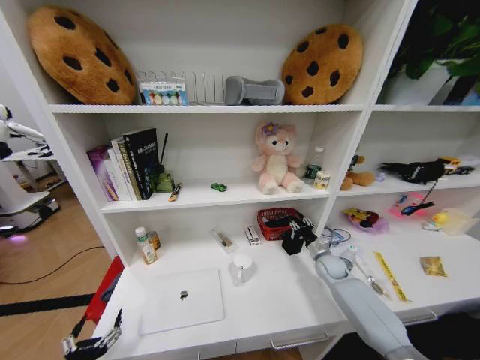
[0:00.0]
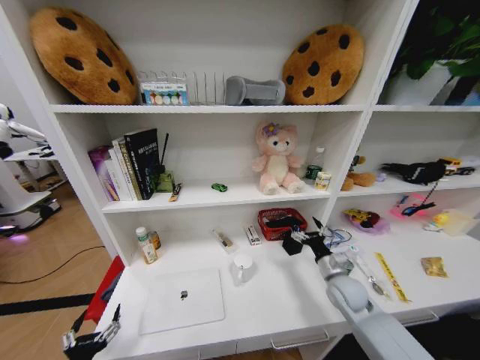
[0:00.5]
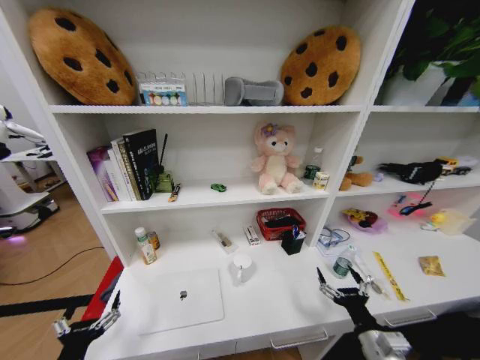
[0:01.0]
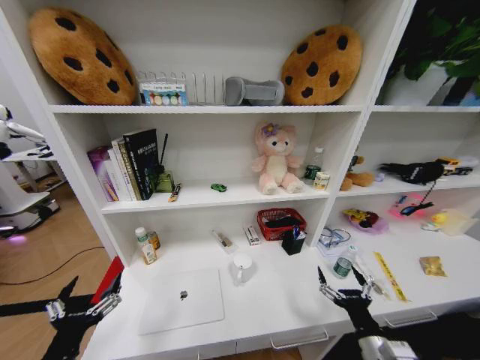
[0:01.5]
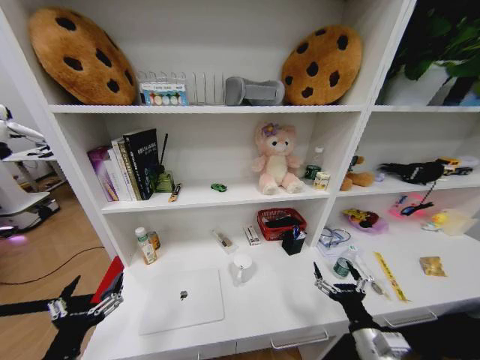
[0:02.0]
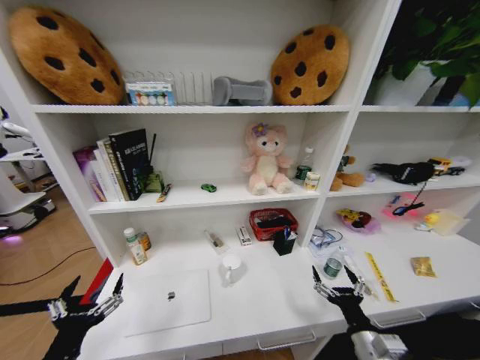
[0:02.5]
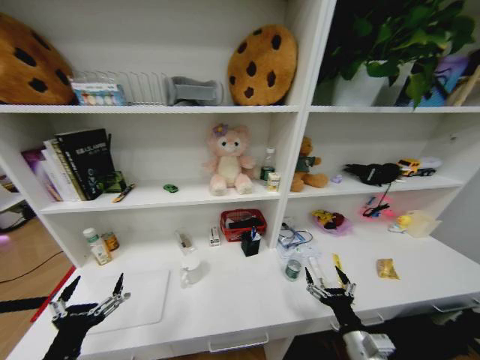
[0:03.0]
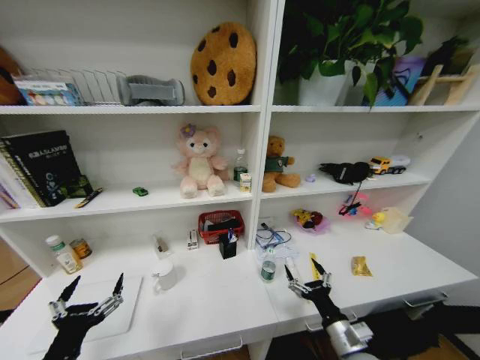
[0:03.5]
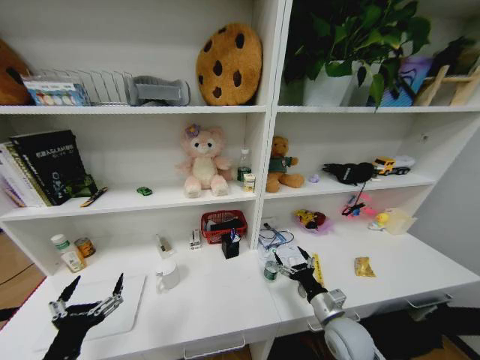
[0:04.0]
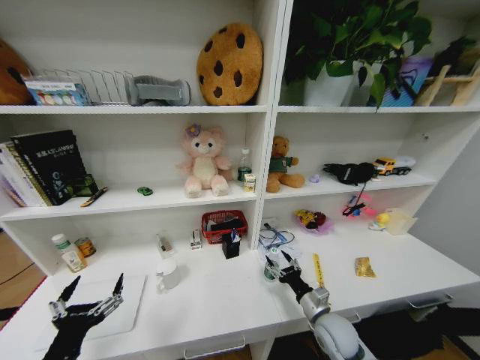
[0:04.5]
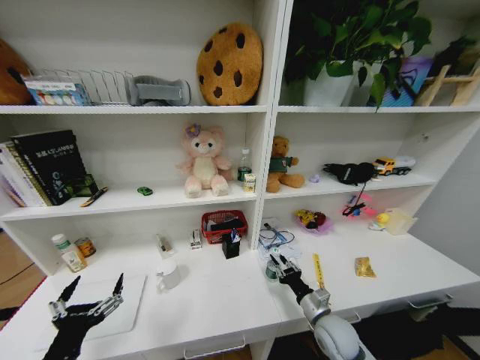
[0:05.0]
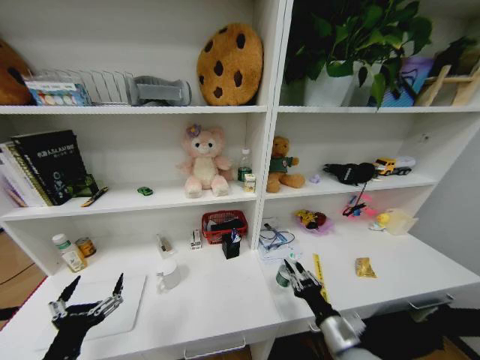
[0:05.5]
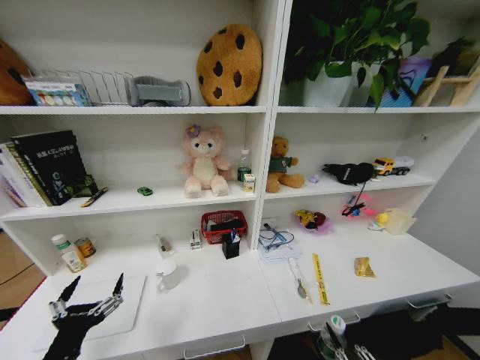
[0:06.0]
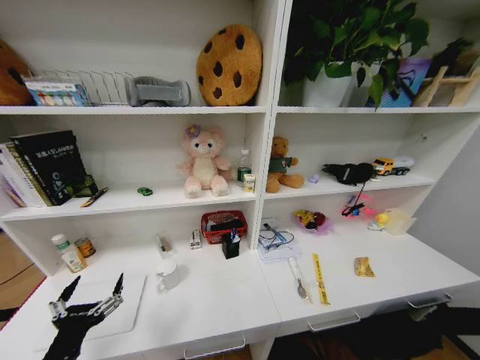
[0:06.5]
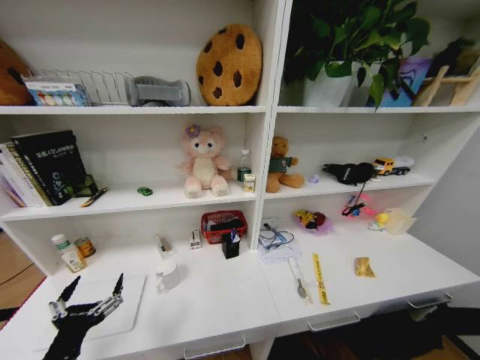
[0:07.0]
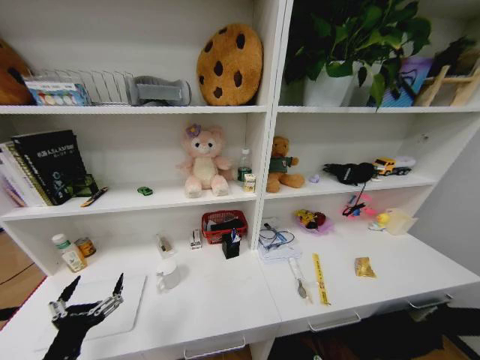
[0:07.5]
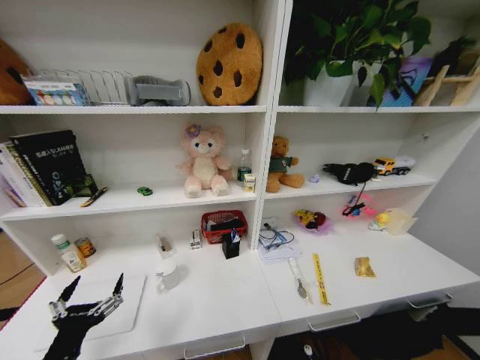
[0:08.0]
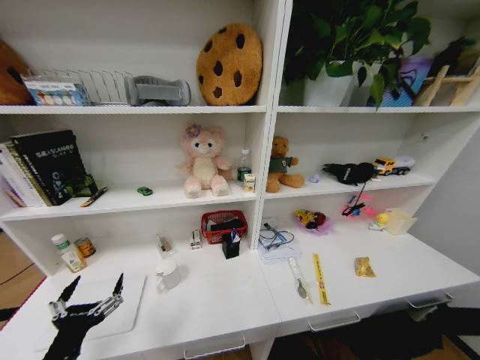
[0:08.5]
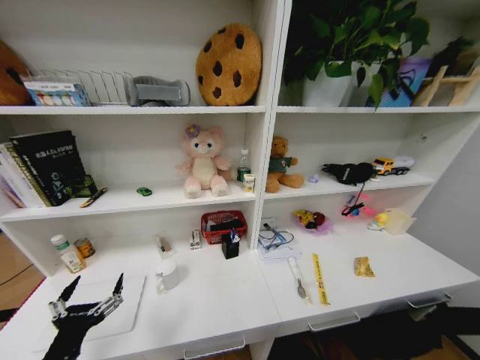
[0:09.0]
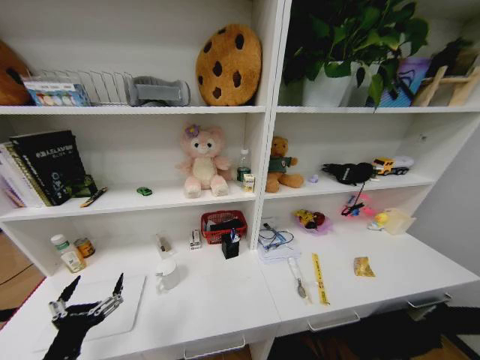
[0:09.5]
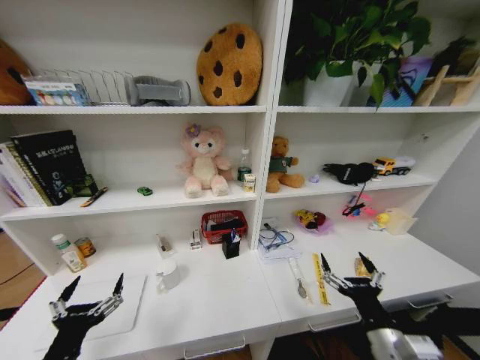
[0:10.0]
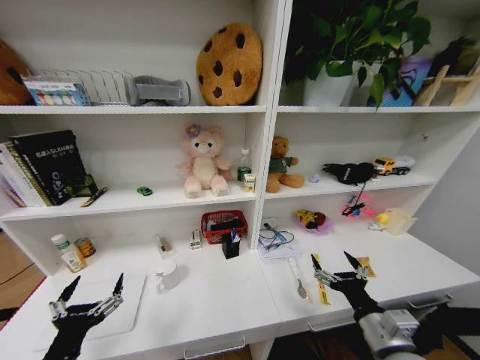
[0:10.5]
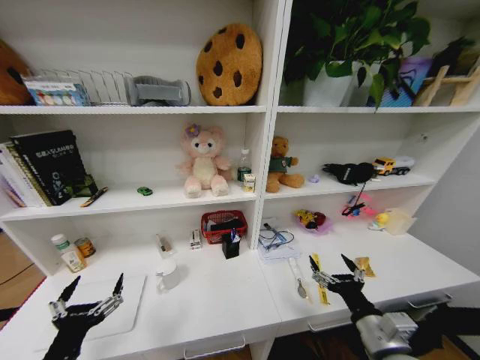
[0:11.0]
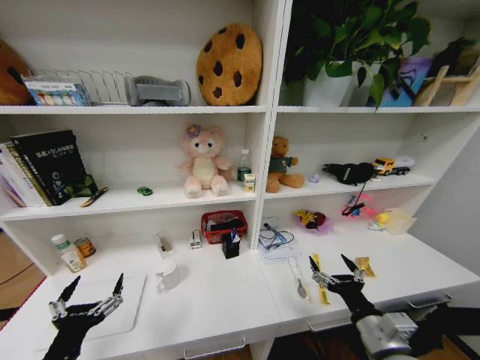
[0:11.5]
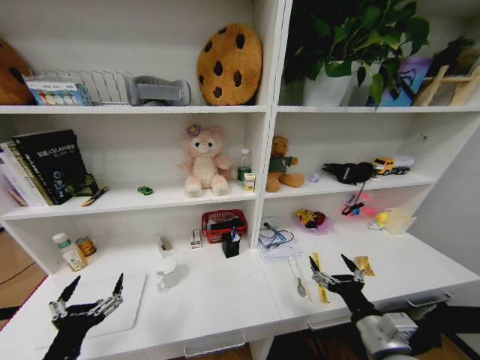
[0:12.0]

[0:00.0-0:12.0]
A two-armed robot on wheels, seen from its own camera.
Task of the whole recording: Organize the objects on the table.
0:00.0 to 0:02.0: The left gripper heads upward, covering some 10 cm; the right gripper moves backward, some 30 cm, and opens up.
0:02.0 to 0:04.0: The right gripper is displaced forward by approximately 10 cm.
0:04.0 to 0:06.0: The right gripper shifts some 25 cm backward, and closes up.
0:06.0 to 0:08.0: The right gripper moves downward, roughly 35 cm.
0:08.0 to 0:10.0: The right gripper goes roughly 40 cm upward, and opens.
0:10.0 to 0:12.0: There are only small adjustments of the grippers.

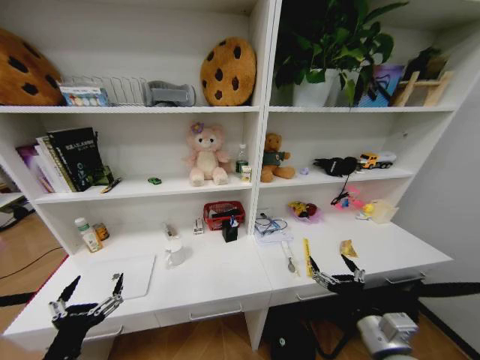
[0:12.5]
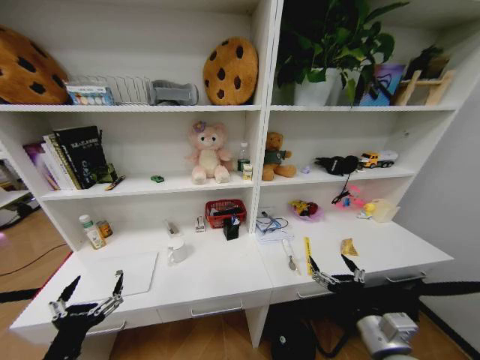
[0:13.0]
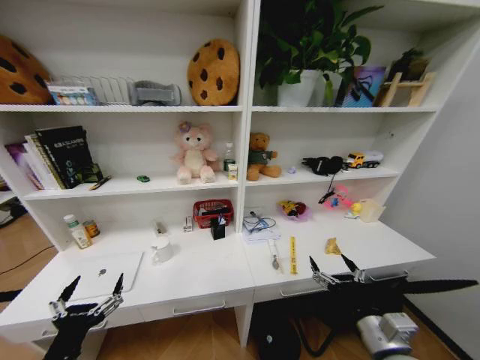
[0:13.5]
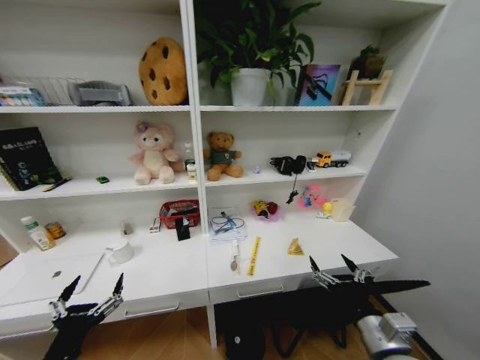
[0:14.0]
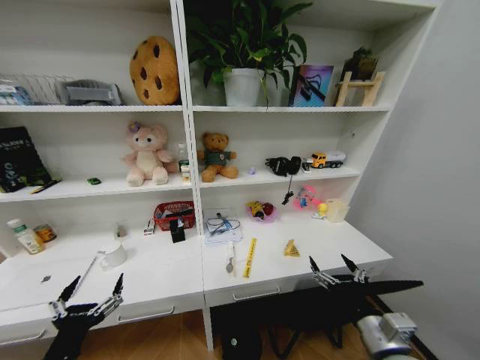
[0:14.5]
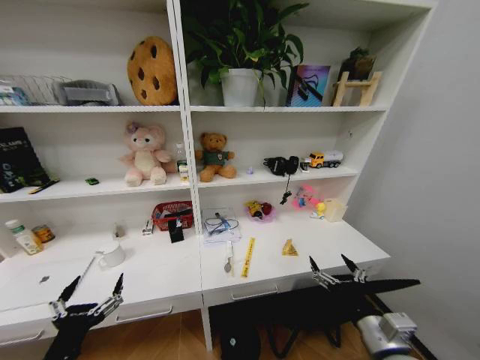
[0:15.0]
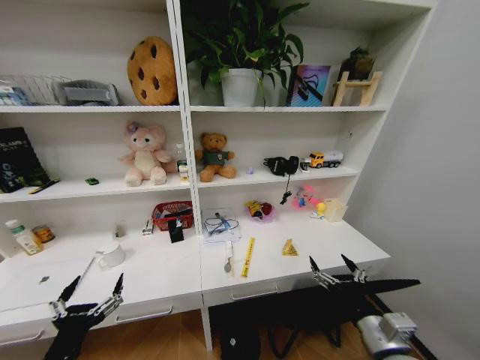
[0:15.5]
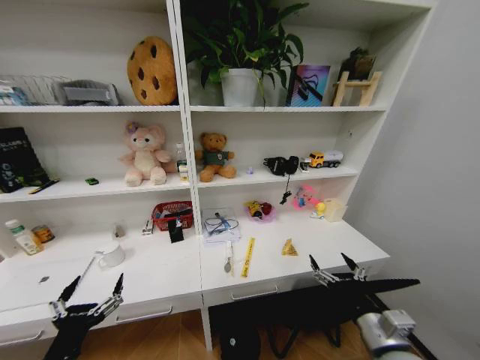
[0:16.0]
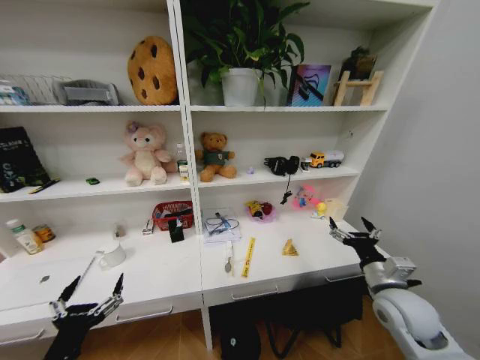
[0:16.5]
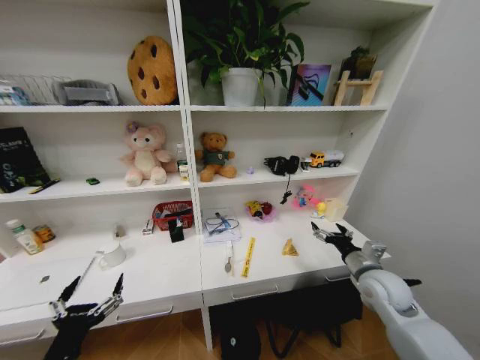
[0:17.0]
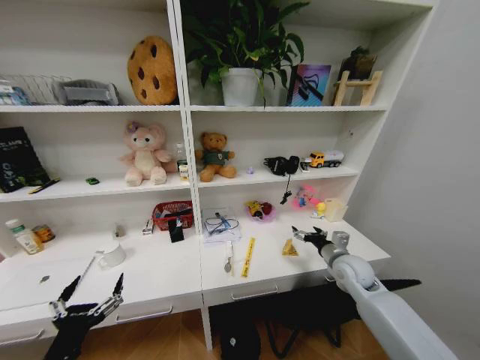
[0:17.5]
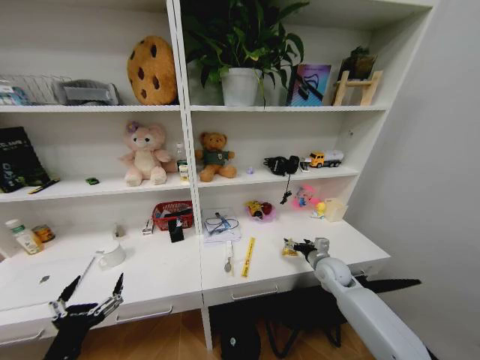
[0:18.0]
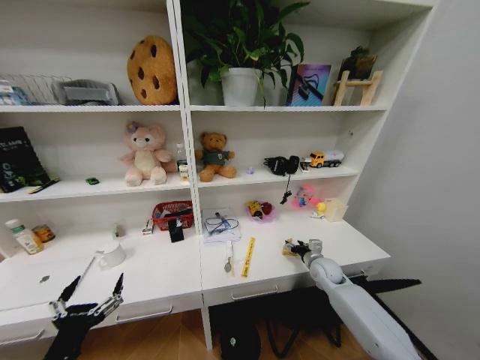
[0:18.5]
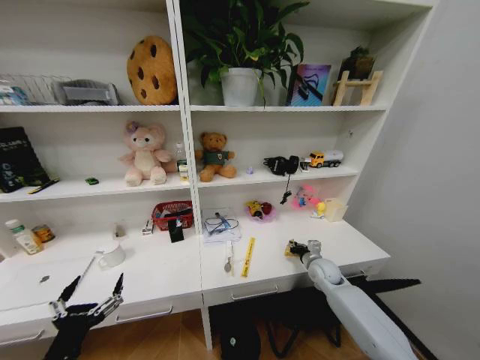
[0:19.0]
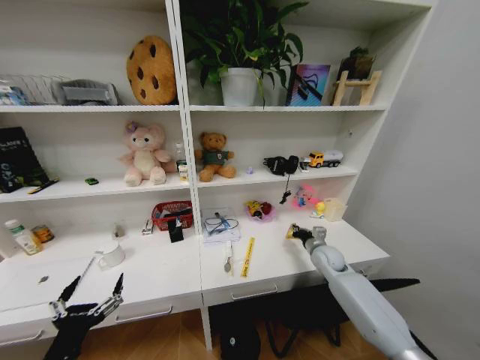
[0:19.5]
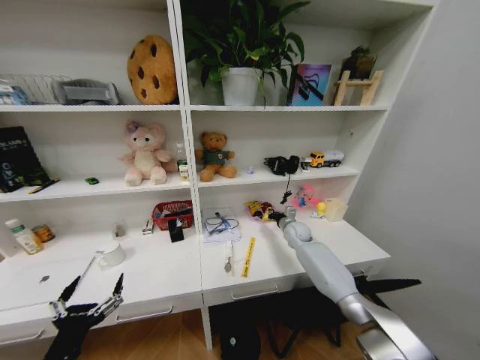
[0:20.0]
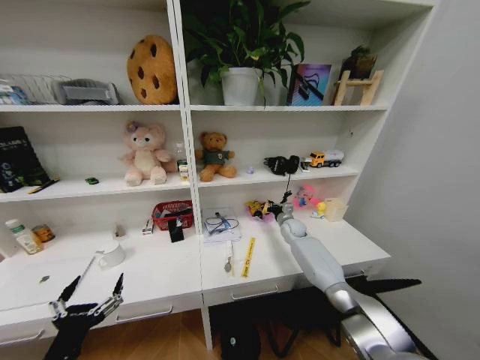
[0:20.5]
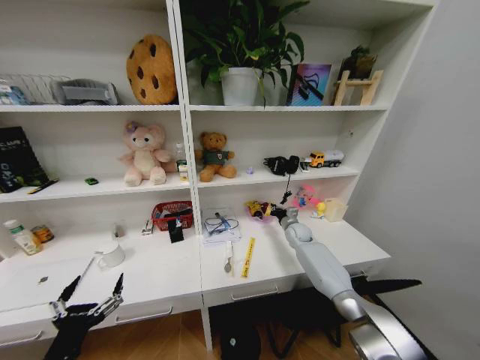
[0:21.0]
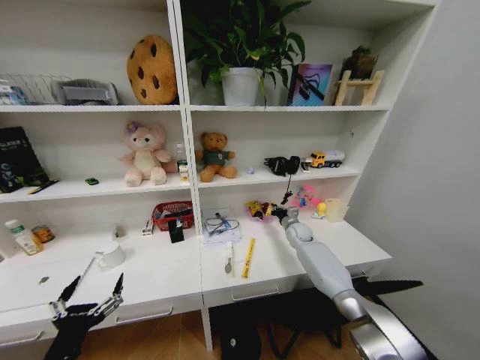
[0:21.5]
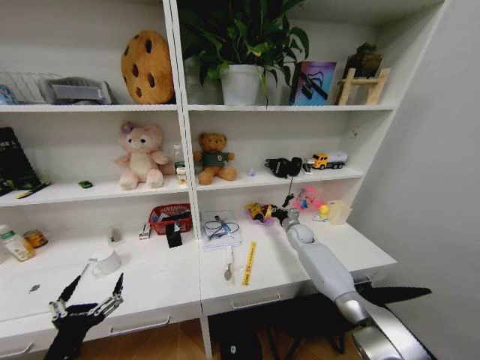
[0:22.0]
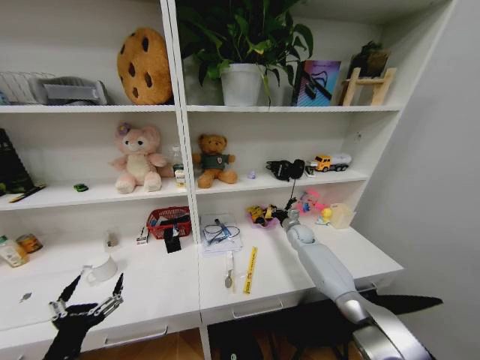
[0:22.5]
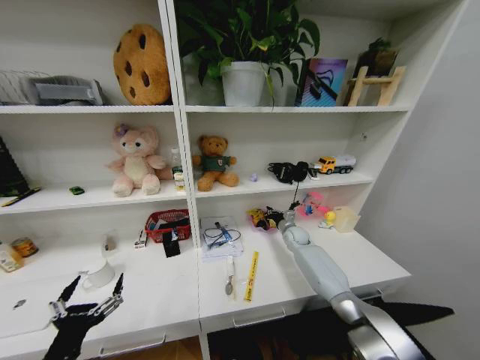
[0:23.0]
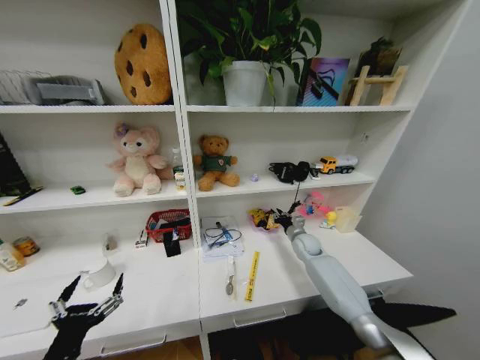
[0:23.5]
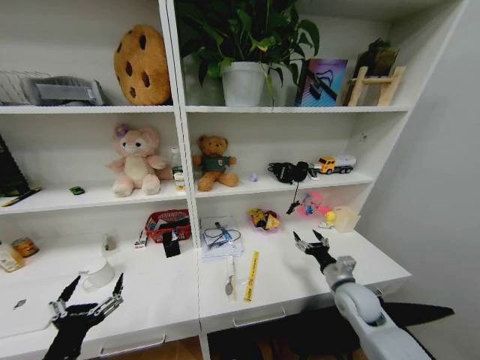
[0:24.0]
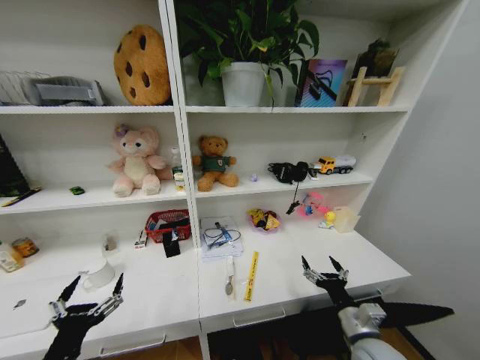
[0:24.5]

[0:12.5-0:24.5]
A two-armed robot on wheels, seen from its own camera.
Task of the whole recording: Organize the objects on the table.
0:14.5 to 0:16.5: The right gripper moves forward and to the right, about 15 cm.
0:16.5 to 0:18.5: The right gripper travels forward and downward by roughly 20 cm.
0:18.5 to 0:20.5: The right gripper shifts approximately 20 cm forward and to the left, and closes its fingers.
0:22.5 to 0:24.5: The right gripper is displaced backward by about 40 cm, and opens its fingers.
